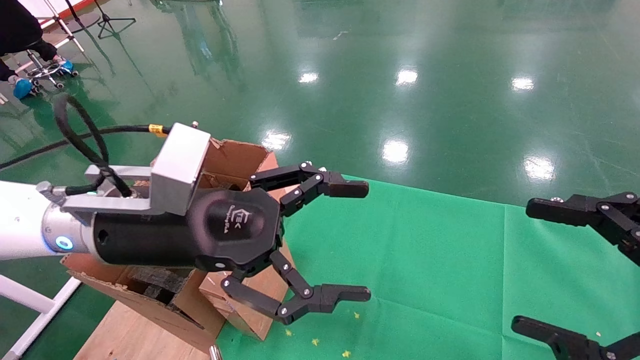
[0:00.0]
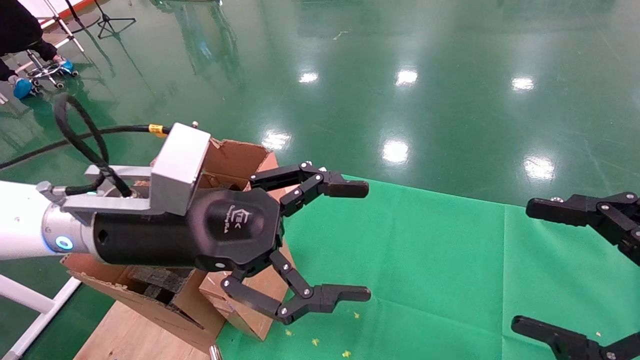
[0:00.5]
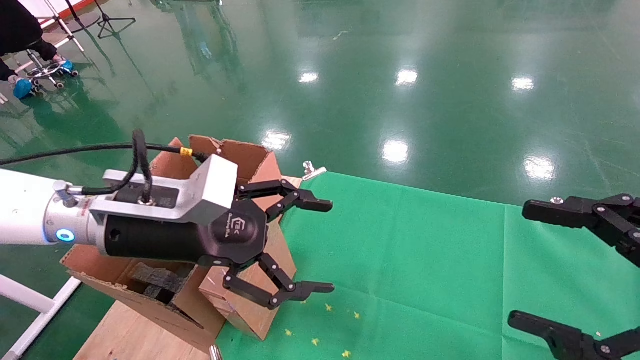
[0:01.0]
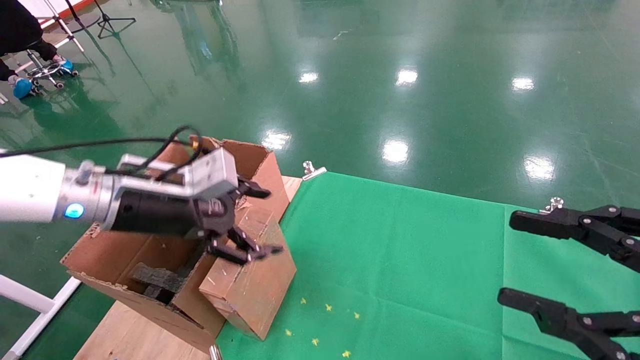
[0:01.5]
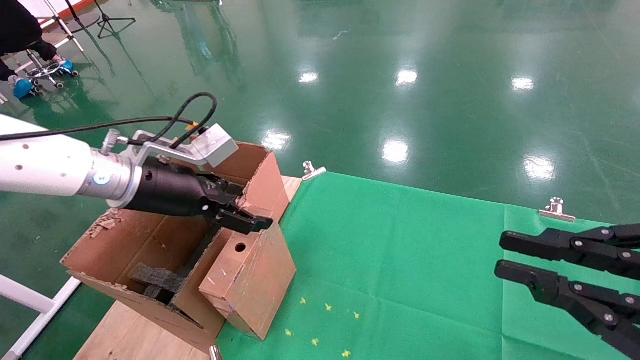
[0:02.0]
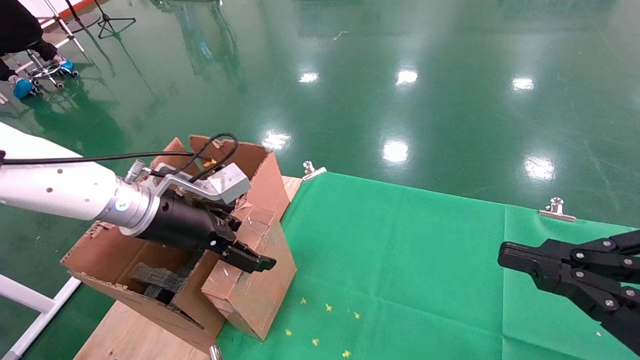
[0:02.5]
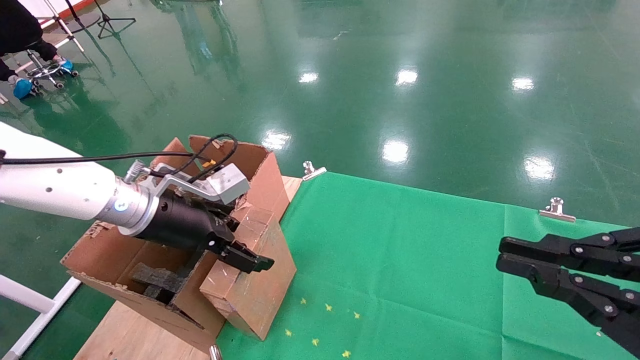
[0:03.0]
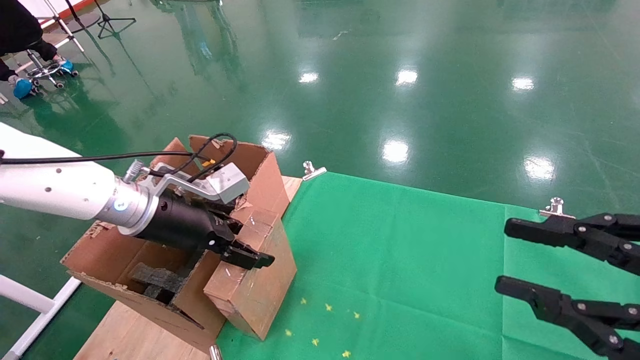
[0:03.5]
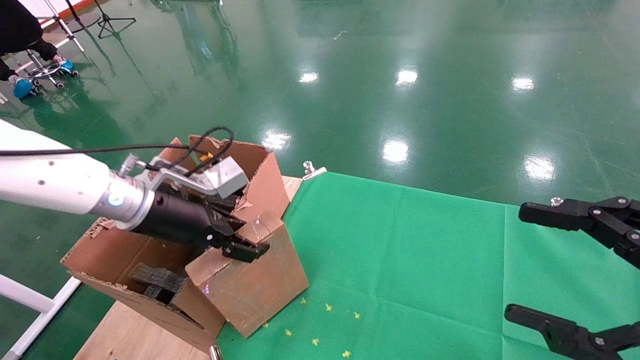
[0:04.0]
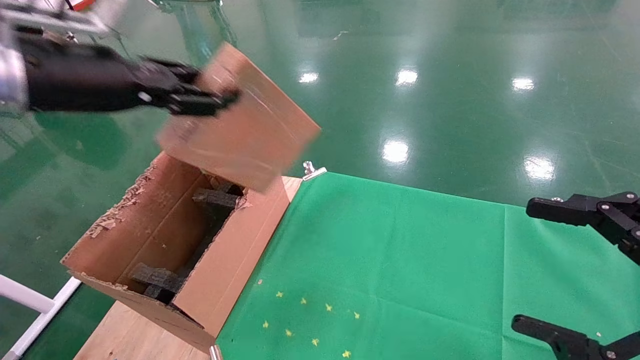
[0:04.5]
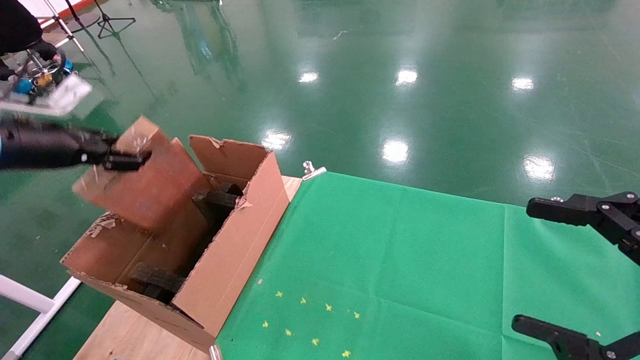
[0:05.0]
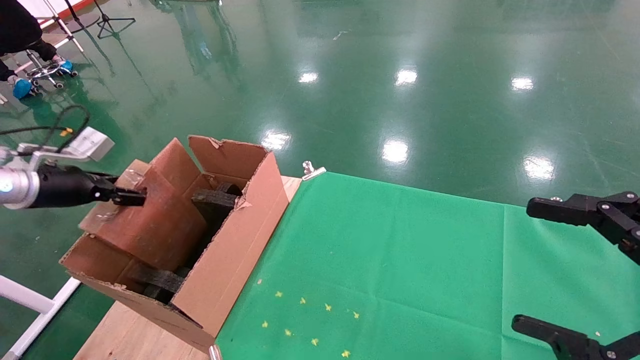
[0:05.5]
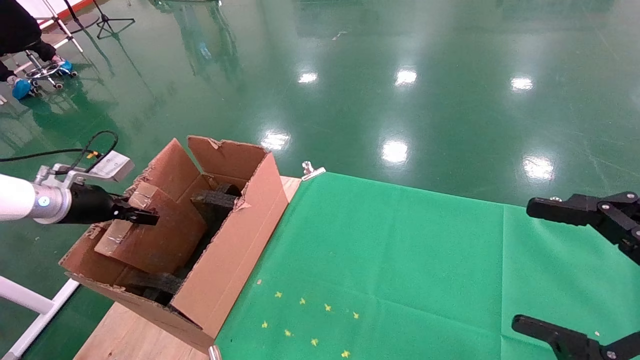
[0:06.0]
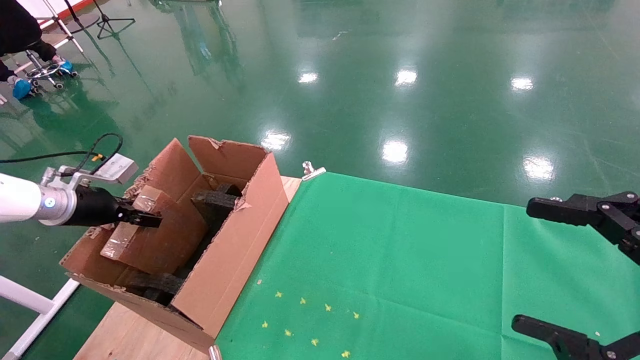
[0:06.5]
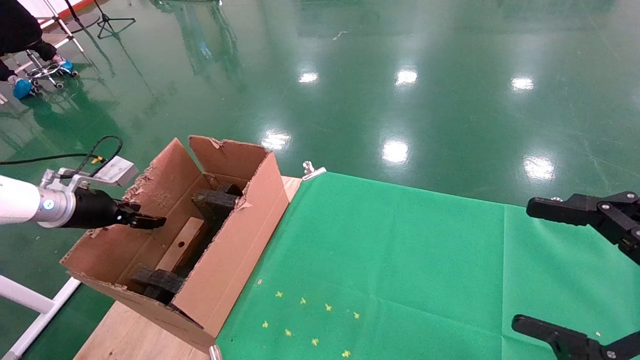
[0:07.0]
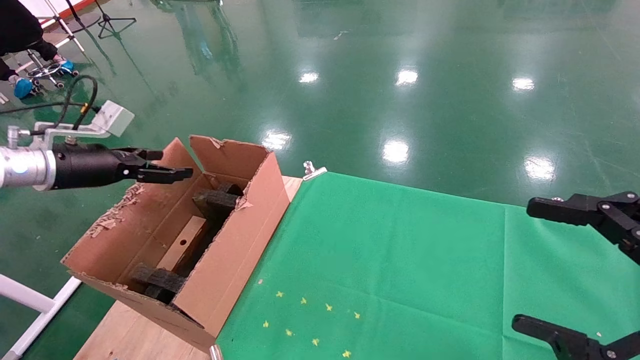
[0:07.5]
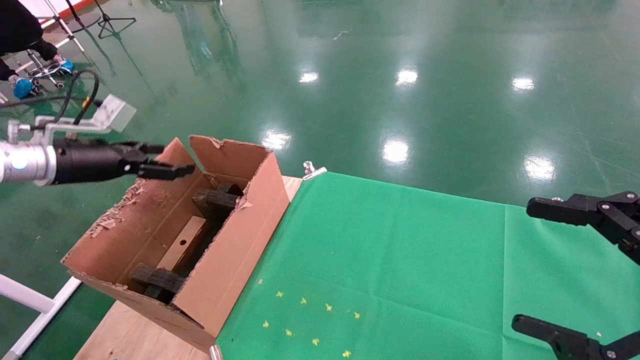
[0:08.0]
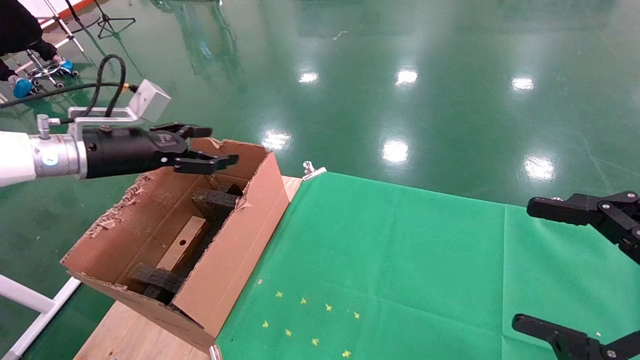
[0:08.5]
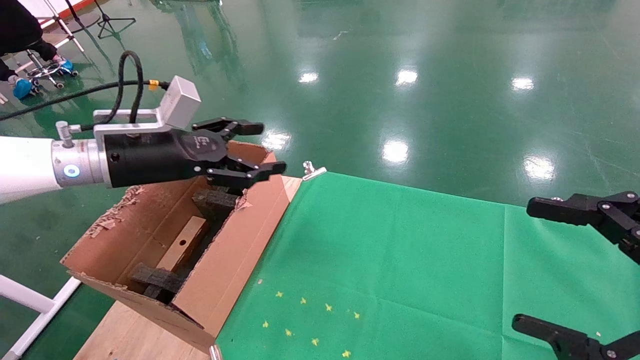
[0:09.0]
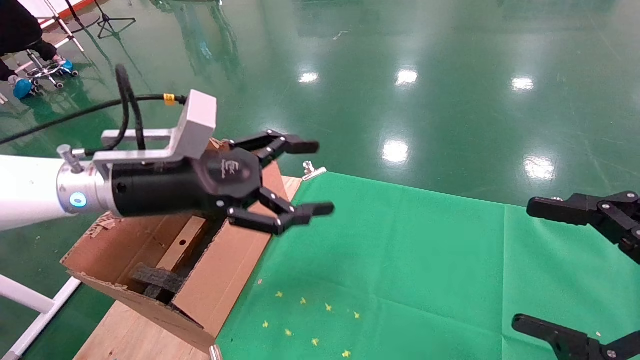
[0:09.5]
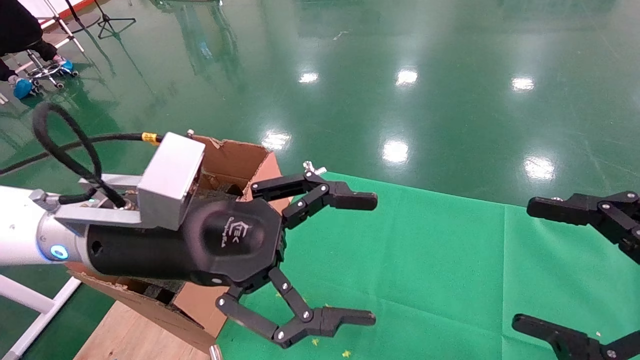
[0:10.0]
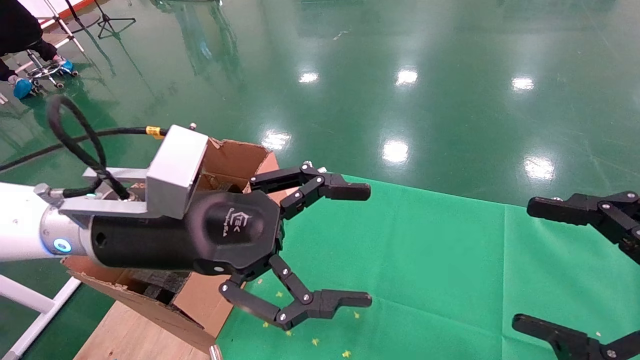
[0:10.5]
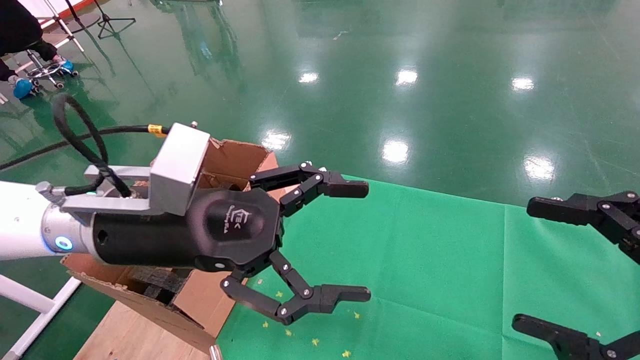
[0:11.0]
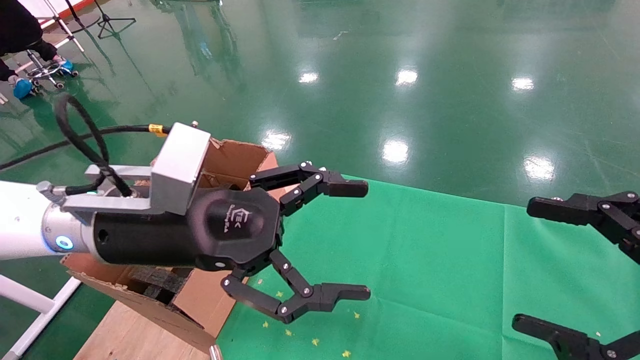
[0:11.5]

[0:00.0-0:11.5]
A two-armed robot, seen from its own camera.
Task of the whole recording: using a robotic arm to pick up a cardboard box and palace it the carton.
Step, 0:01.5 to 0:03.5: Pick up the mouse and the power cord paper box.
Step, 0:04.0 to 0:06.5: Place the mouse and the power cord paper box into the container.
0:00.0 to 0:02.0: The right gripper closes; the left gripper travels forward and to the left by roughly 10 cm.
0:02.0 to 0:04.0: The left gripper closes. Meanwhile the right gripper opens up.
0:04.0 to 0:06.0: The left gripper is displaced to the left by some 25 cm.
0:06.0 to 0:07.5: The left gripper goes roughly 5 cm upward, and opens its fingers.
0:07.5 to 0:09.5: The left gripper moves to the right, approximately 25 cm.
0:09.5 to 0:11.5: The left gripper moves backward, some 5 cm.

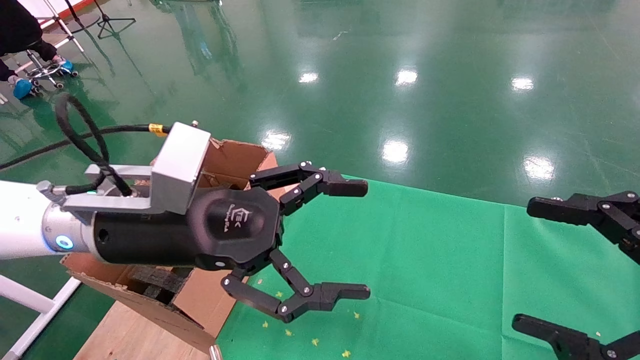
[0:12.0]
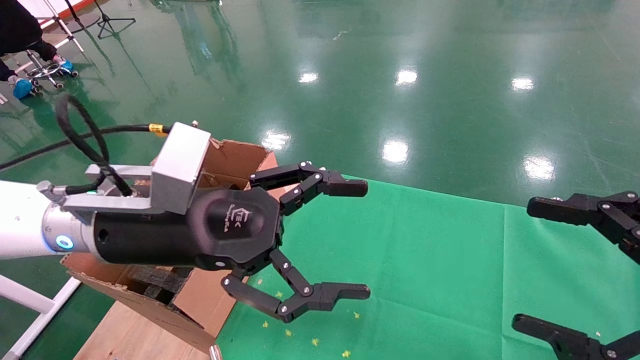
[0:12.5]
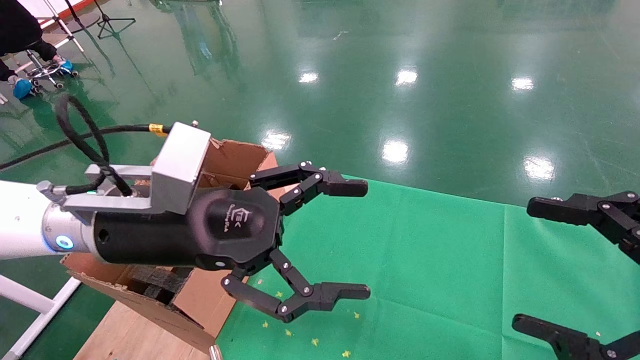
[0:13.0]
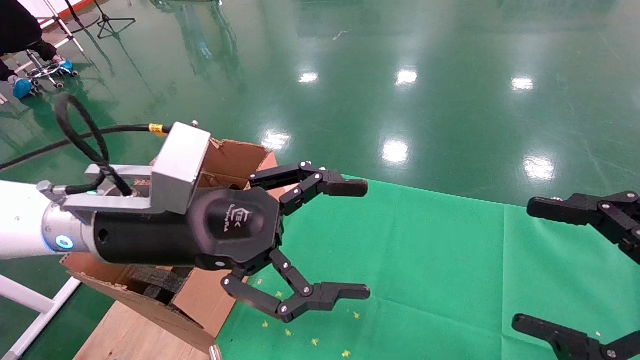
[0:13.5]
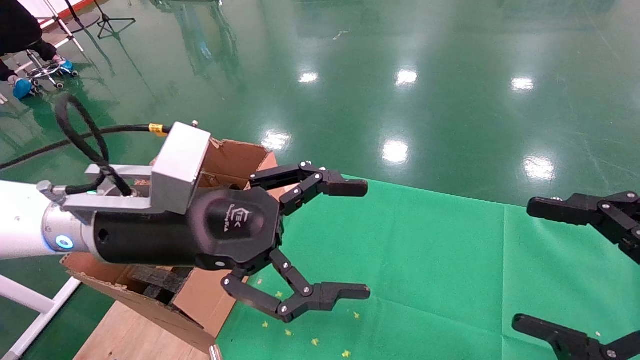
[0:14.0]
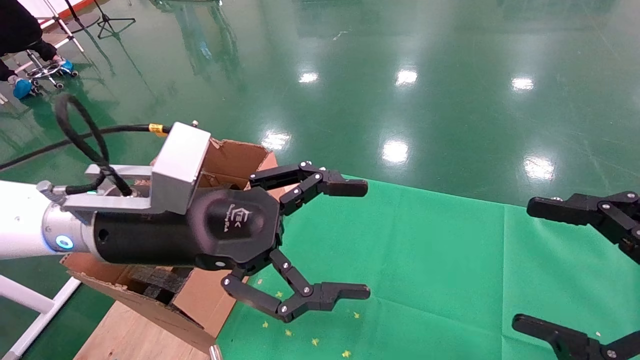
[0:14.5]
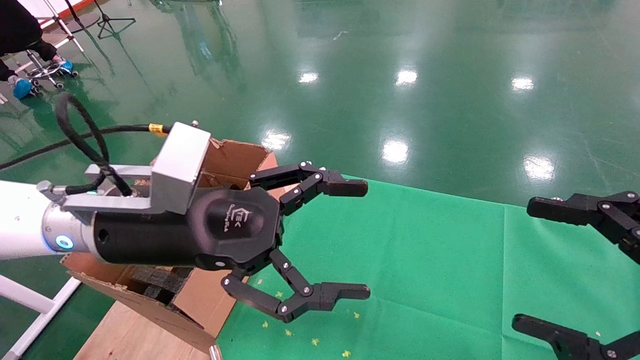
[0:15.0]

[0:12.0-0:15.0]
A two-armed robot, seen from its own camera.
Task of the whole recording: using a robotic arm to pick up a cardboard box and palace it the carton.
0:12.0 to 0:15.0: Both grippers stay about where they are.
